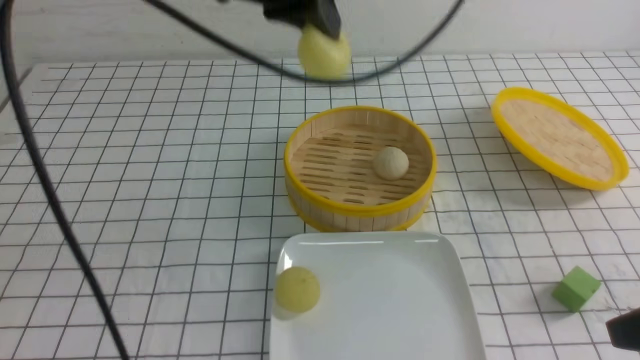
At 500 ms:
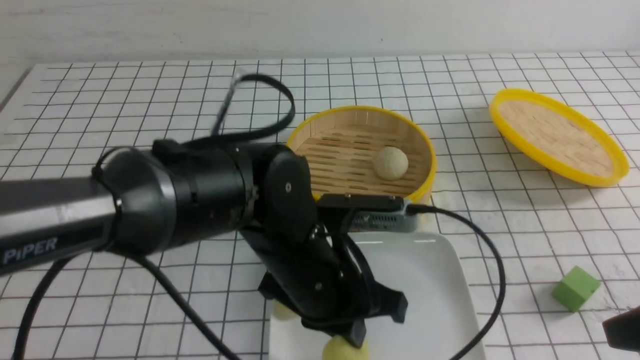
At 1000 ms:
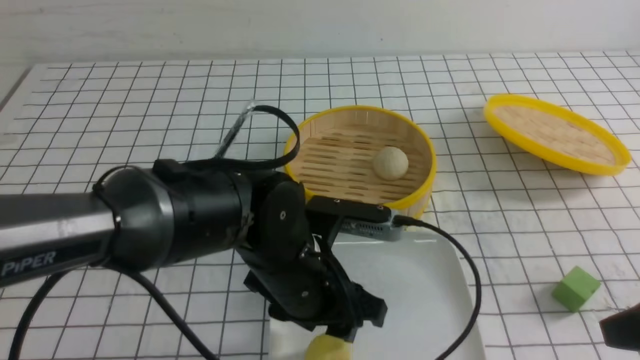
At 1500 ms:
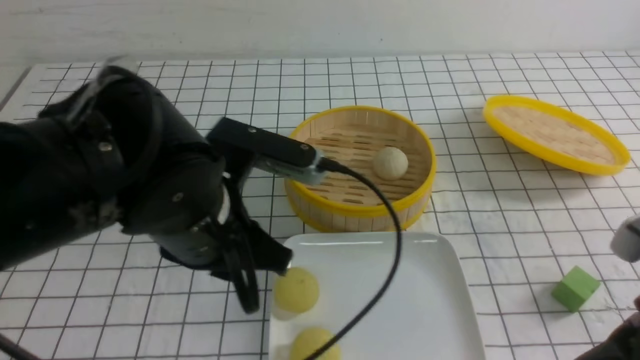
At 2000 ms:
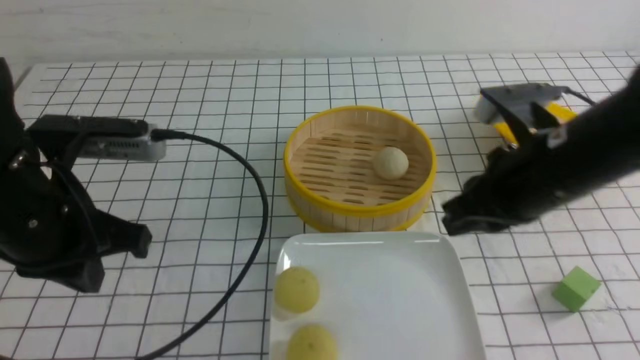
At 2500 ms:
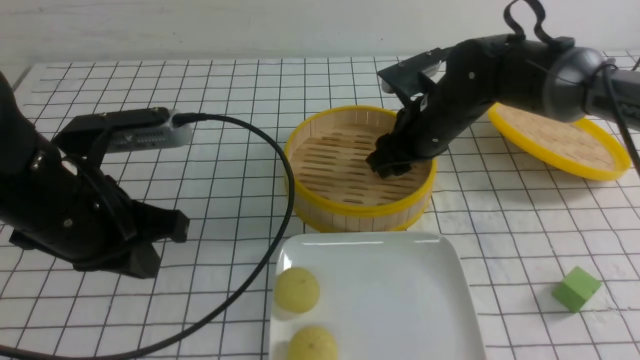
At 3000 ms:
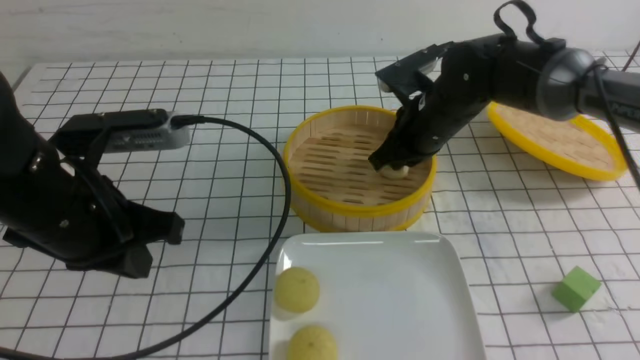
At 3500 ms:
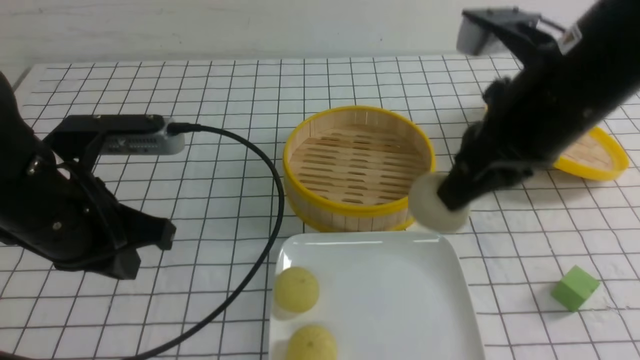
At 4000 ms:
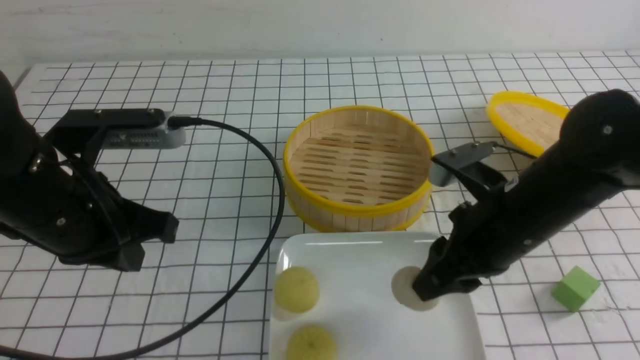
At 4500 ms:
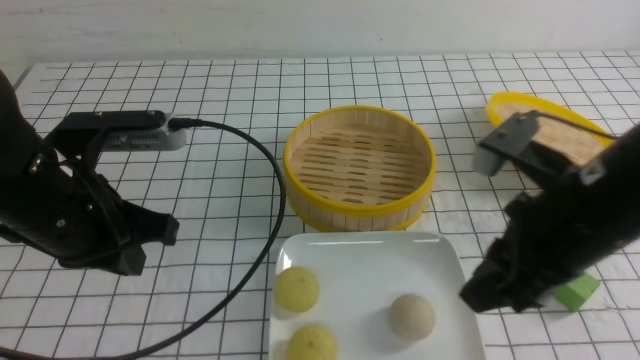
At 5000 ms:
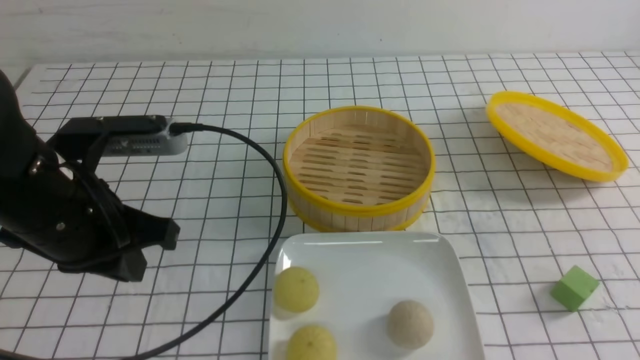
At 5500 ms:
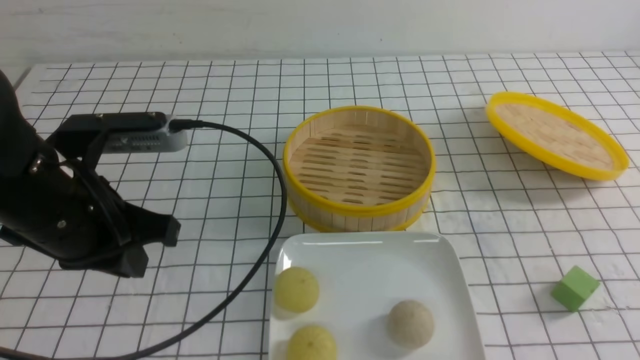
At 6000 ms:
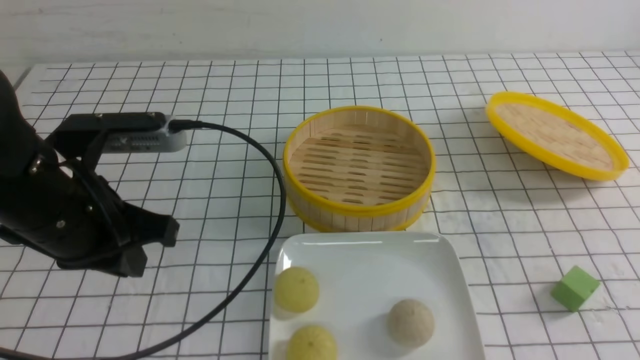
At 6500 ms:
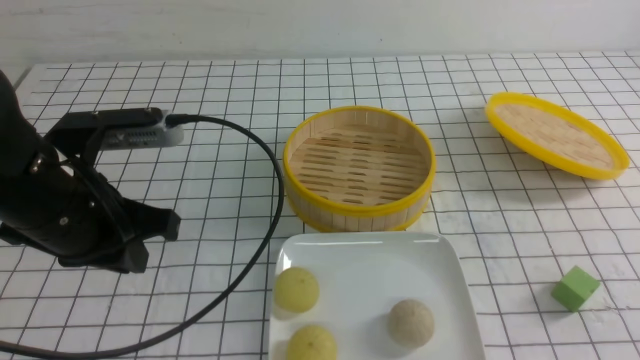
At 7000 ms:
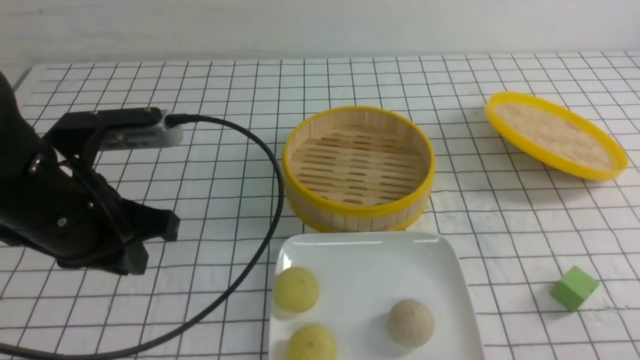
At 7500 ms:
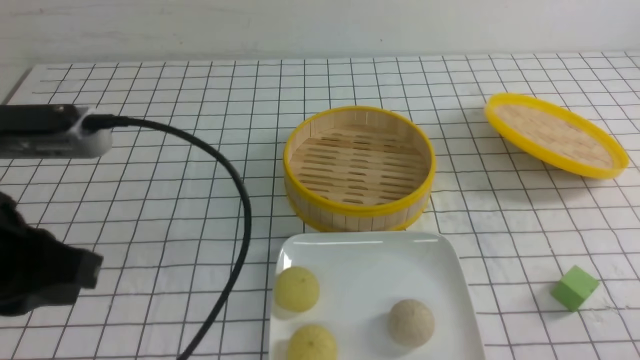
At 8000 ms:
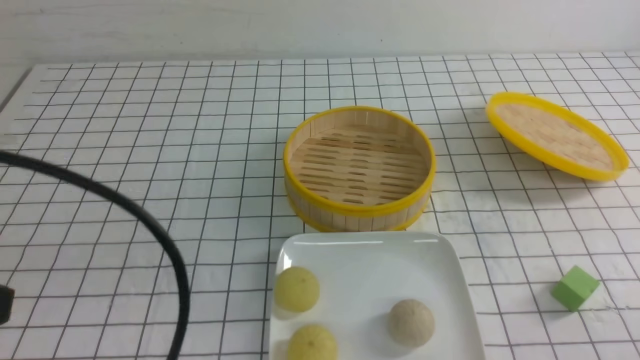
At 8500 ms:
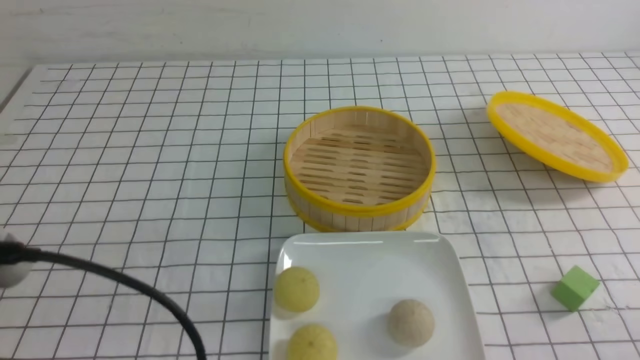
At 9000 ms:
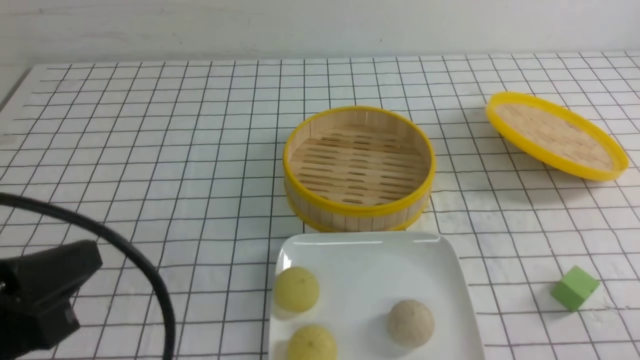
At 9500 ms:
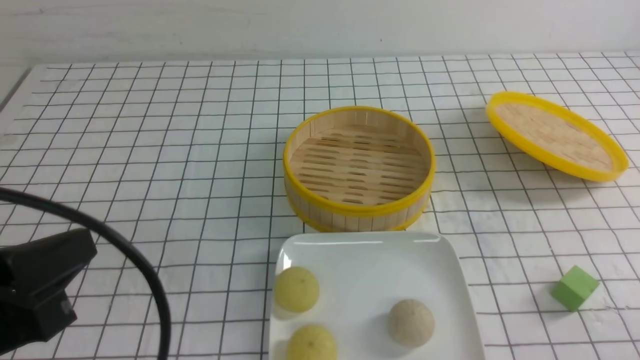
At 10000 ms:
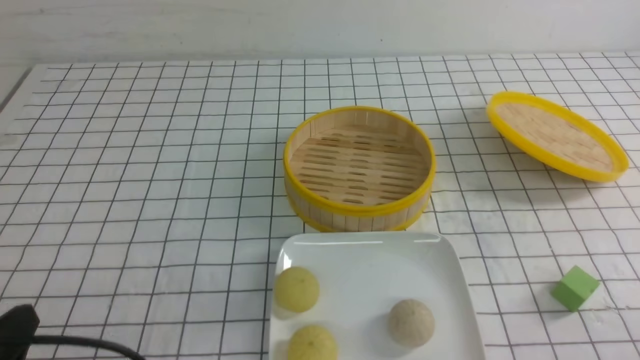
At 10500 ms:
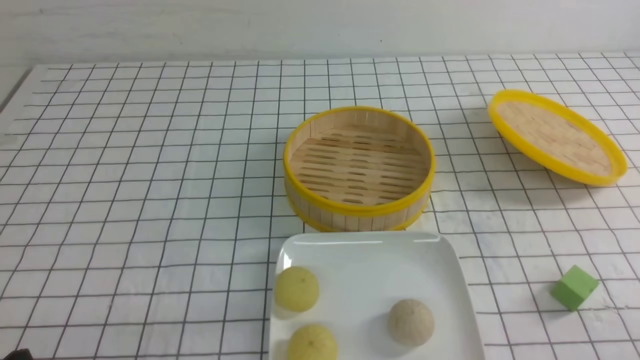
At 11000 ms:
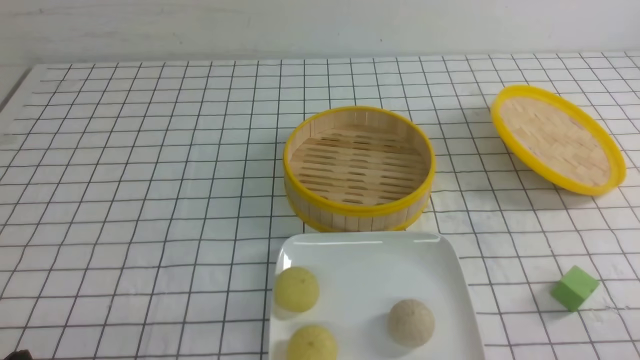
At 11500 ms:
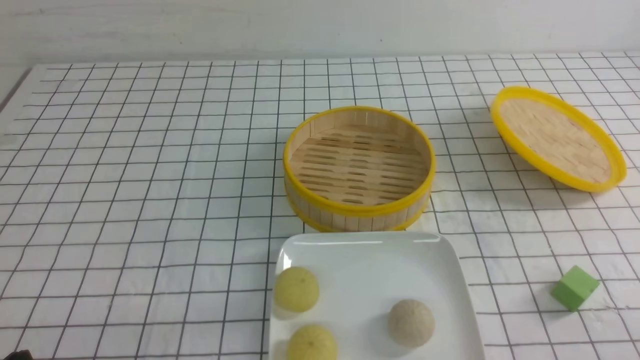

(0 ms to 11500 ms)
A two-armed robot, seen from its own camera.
Step, 1000 ms - 2500 ms: use the right arm to grab the steamed stuffed bun that is closest to it.
Step, 3500 ms - 4000 ms: use the right arm to put the steamed stuffed bun into the plate.
0 ms - 2000 ms: The right gripper is displaced forward and to the left by roughly 20 cm, and closes up; the left gripper is displaced to the left, backward and downward by about 20 cm, and opens and closes again.
2000 ms - 4000 ms: The right gripper goes roughly 5 cm downward, goes forward and returns, some 15 cm each way, and opens its fingers.
4000 ms - 6000 ms: The right gripper moves backward, to the right and upward, some 25 cm, and closes its fingers.
6000 ms - 7500 ms: The right gripper shifts approximately 20 cm downward. The left gripper shifts roughly 10 cm backward and upward.
7500 ms - 9500 ms: The left gripper goes about 5 cm backward.
9500 ms - 11500 ms: The left gripper travels downward by approximately 15 cm.
